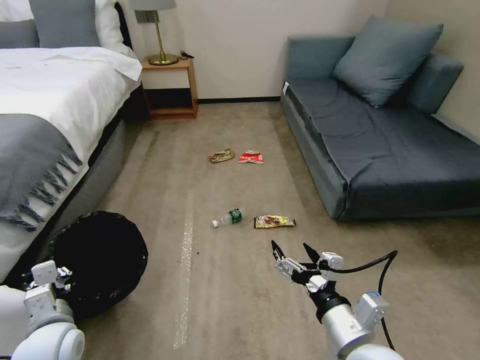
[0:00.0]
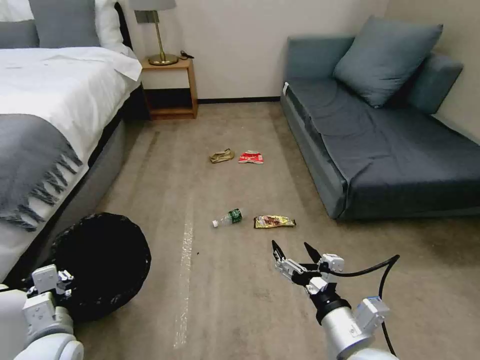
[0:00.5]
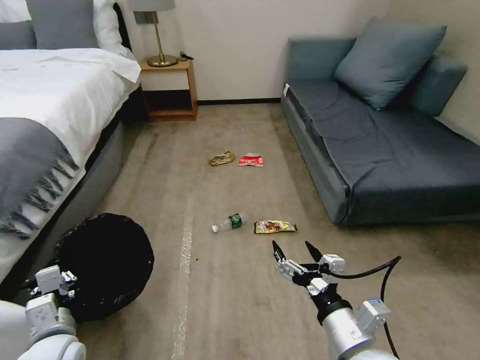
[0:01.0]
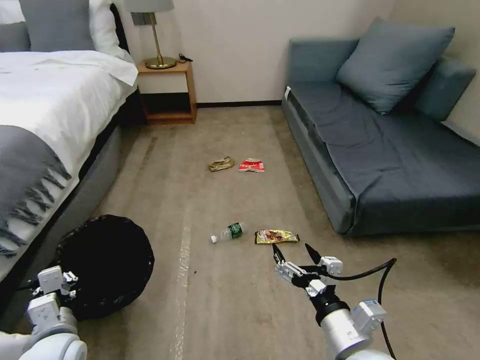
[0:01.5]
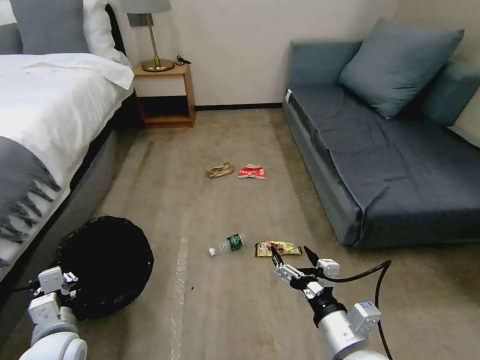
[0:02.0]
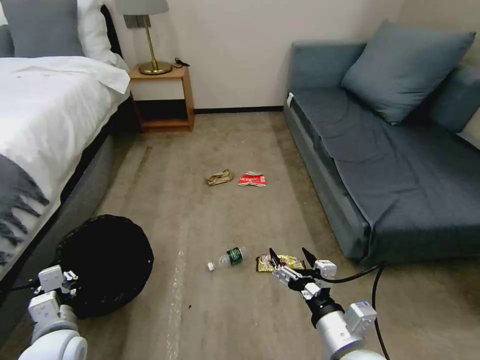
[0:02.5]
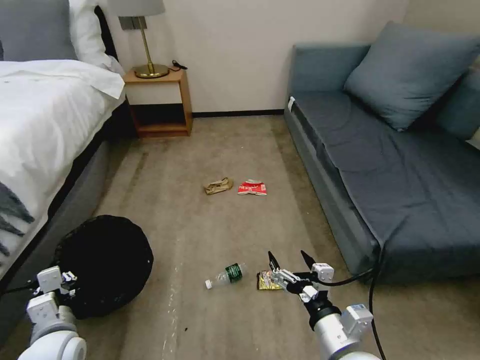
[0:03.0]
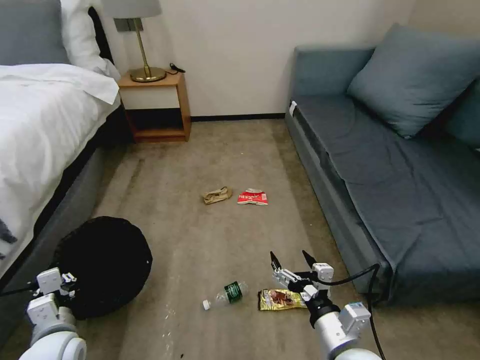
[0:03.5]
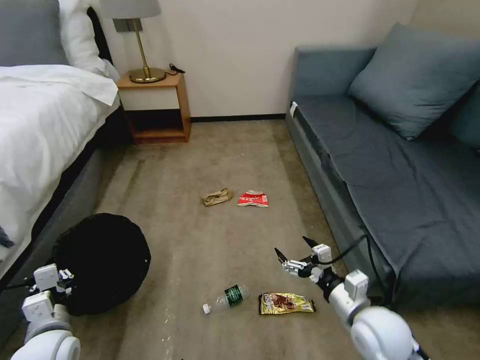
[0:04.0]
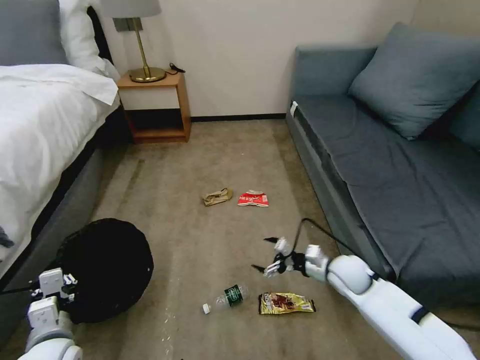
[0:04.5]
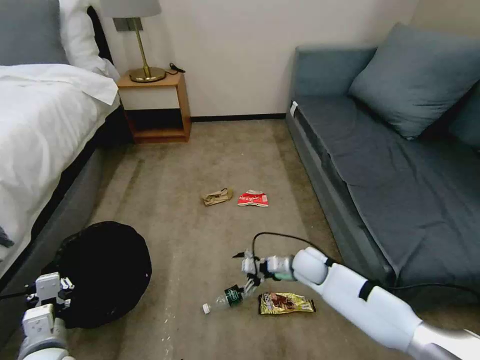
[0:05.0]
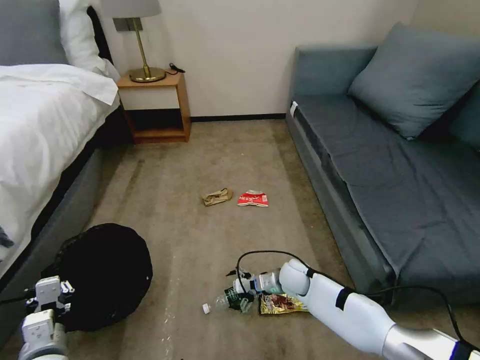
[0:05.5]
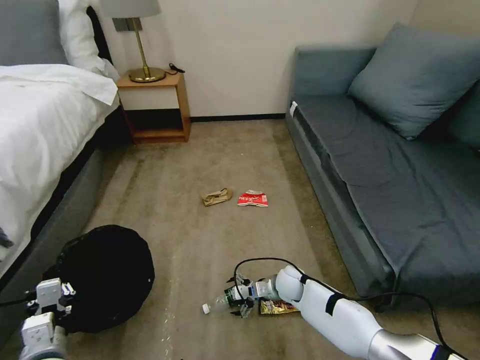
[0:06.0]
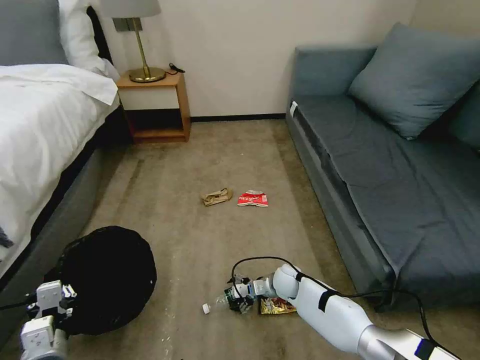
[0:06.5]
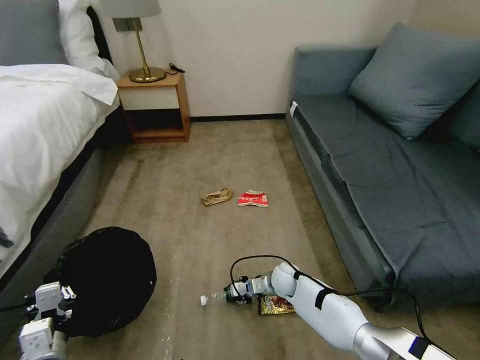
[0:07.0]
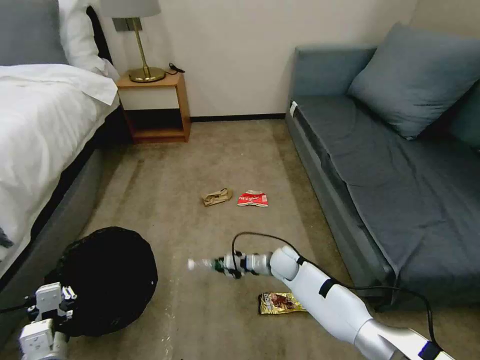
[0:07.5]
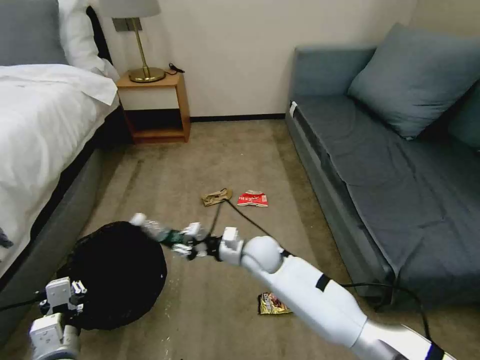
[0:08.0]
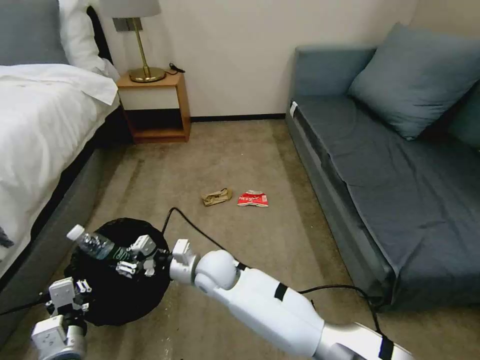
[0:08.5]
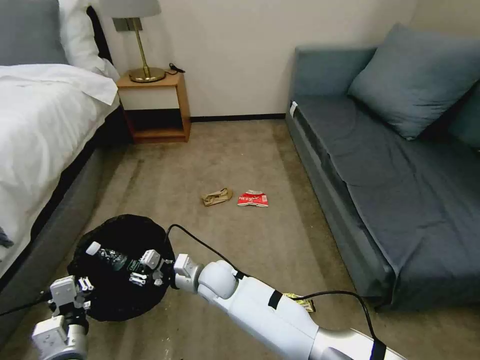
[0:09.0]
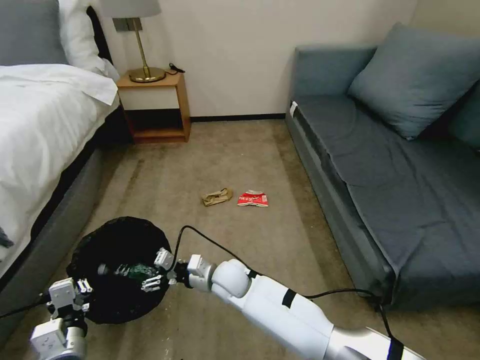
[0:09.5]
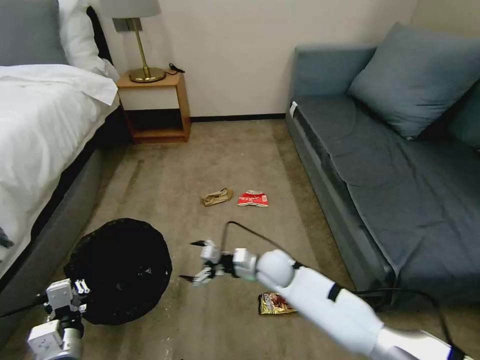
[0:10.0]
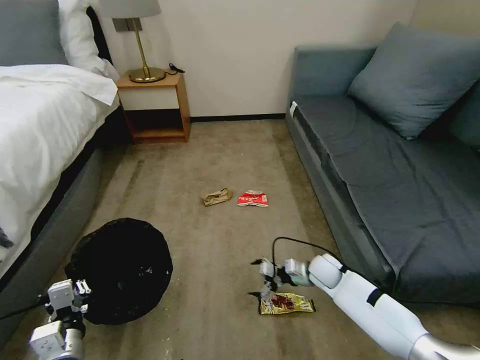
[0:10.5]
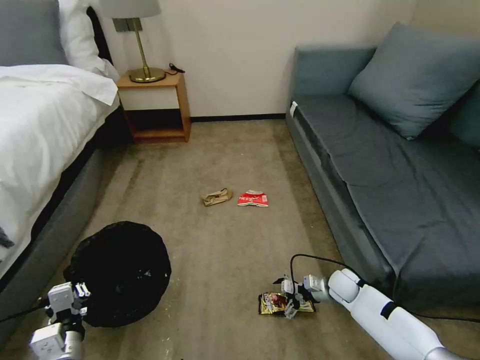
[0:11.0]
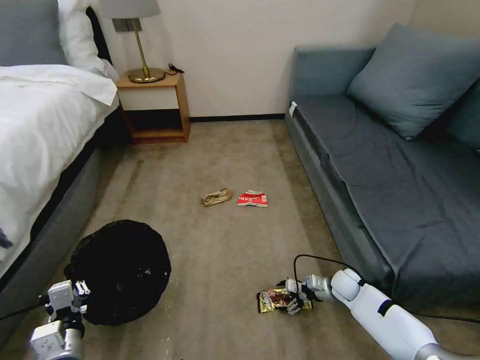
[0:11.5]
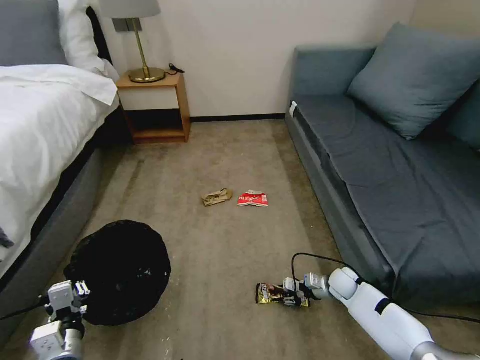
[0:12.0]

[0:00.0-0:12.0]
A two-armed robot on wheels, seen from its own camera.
Task of the whole recording: Pick up the trash bin, then pick up the garbage on the floor and place it into the trash bin.
0:02.0 to 0:04.0: The right gripper heads forward and to the right, covering roughly 10 cm.
0:04.0 to 0:06.0: The right gripper moves downward, forward and to the left, roughly 25 cm.
0:06.0 to 0:08.0: The right gripper is displaced upward and to the left by some 20 cm, and closes up.
0:08.0 to 0:10.0: The right gripper shifts approximately 5 cm downward, reaches roughly 10 cm to the left, then returns, and opens up.
0:10.0 to 0:12.0: The right gripper travels to the right and downward by some 25 cm, and closes its fingers.

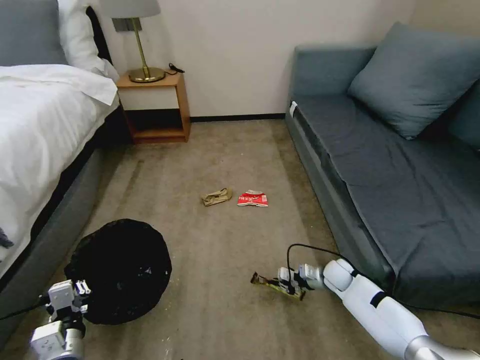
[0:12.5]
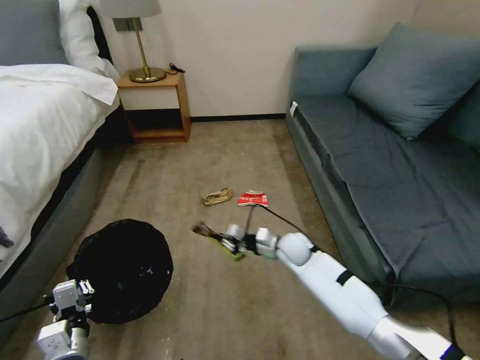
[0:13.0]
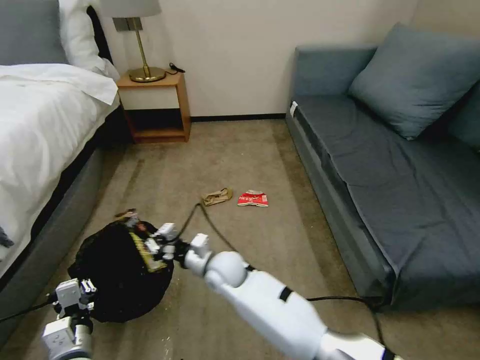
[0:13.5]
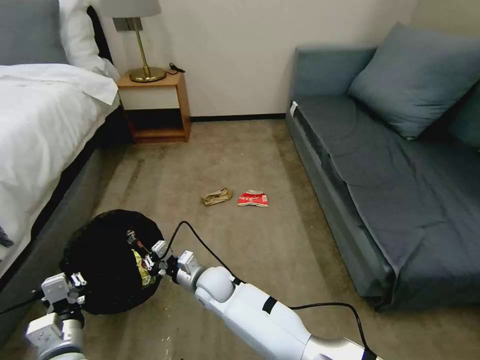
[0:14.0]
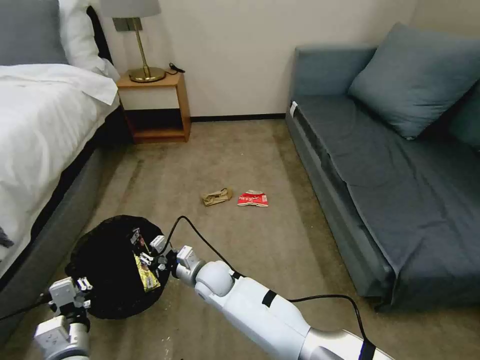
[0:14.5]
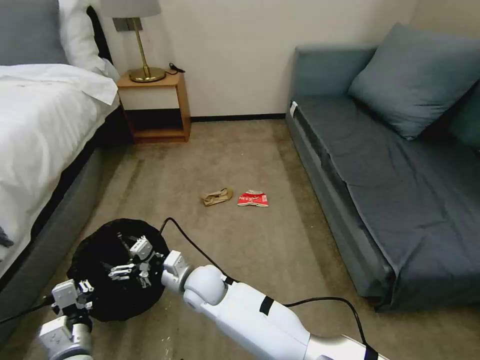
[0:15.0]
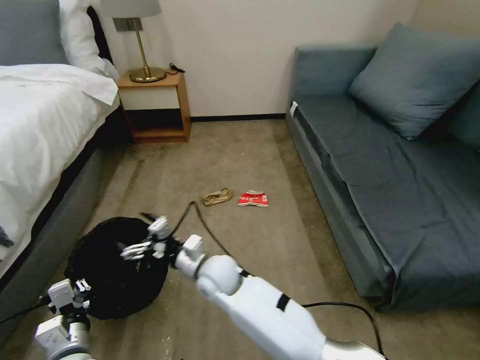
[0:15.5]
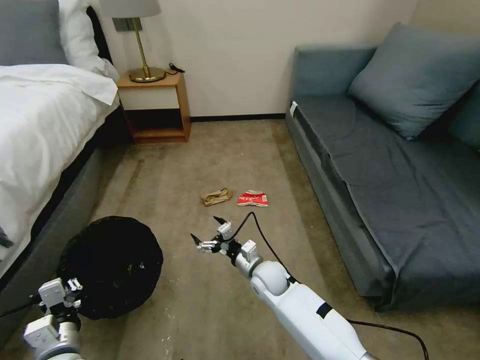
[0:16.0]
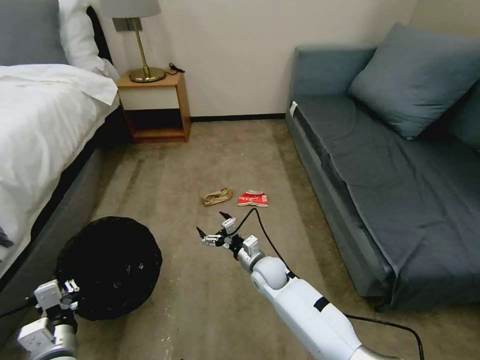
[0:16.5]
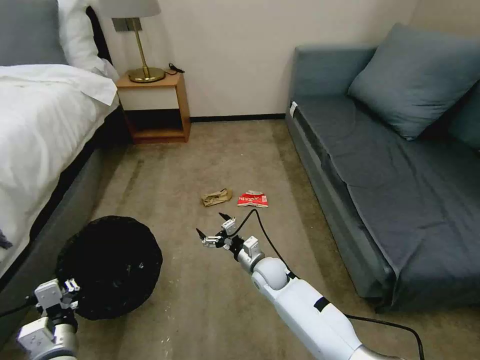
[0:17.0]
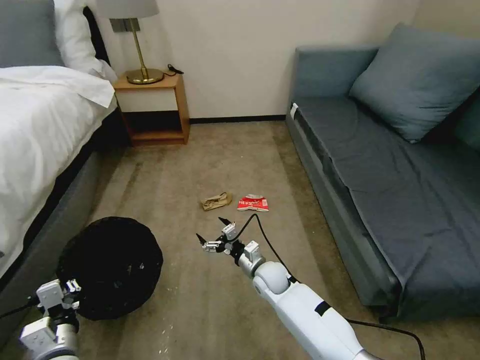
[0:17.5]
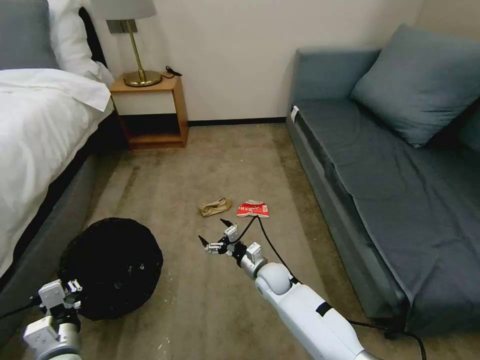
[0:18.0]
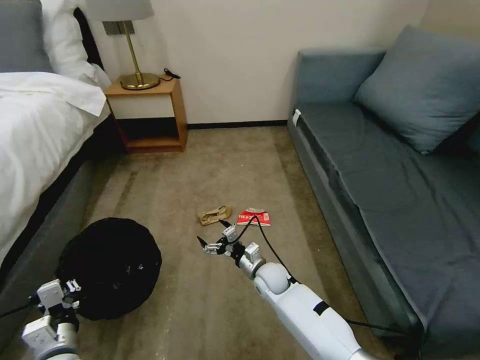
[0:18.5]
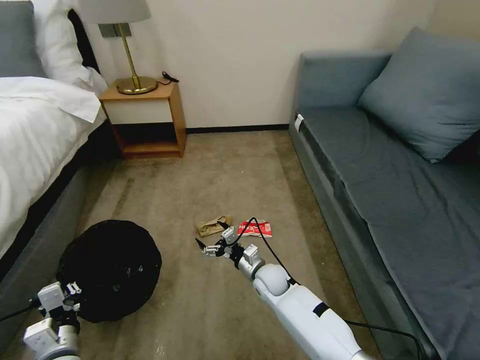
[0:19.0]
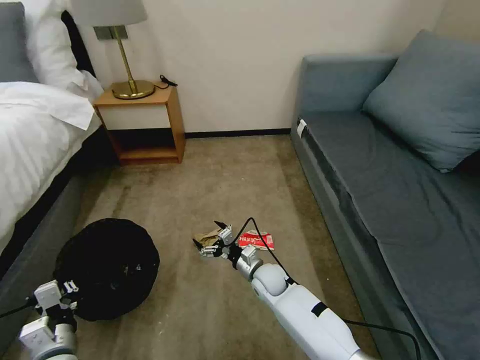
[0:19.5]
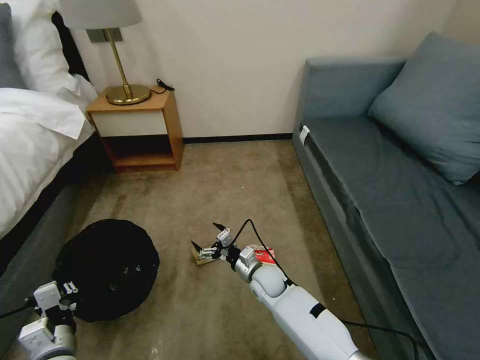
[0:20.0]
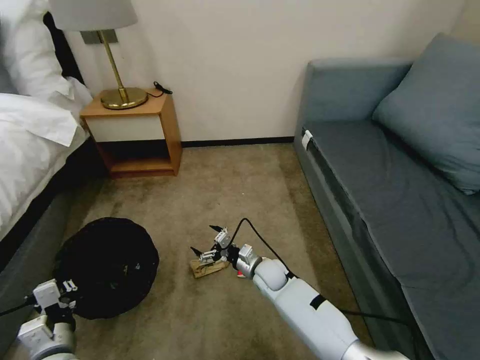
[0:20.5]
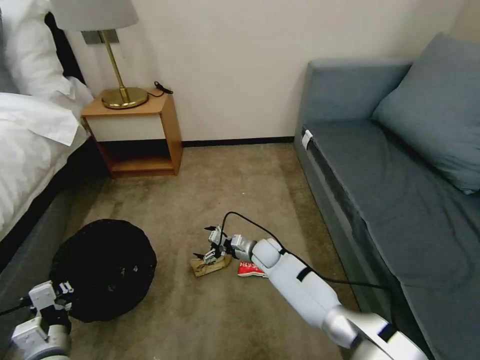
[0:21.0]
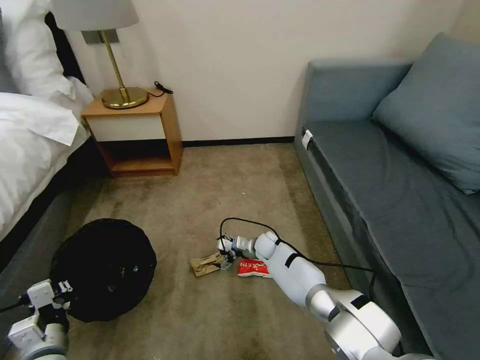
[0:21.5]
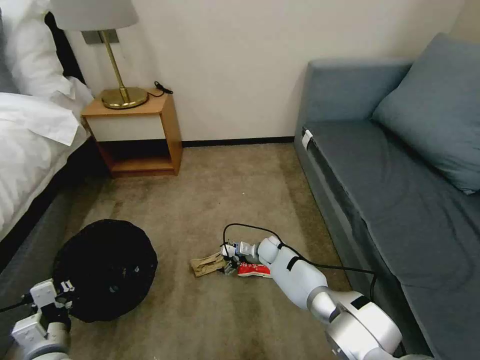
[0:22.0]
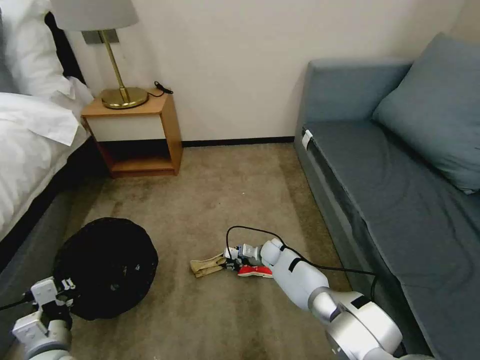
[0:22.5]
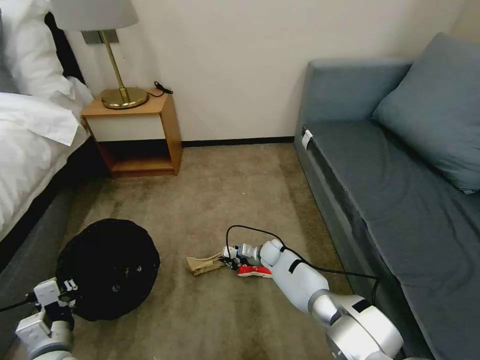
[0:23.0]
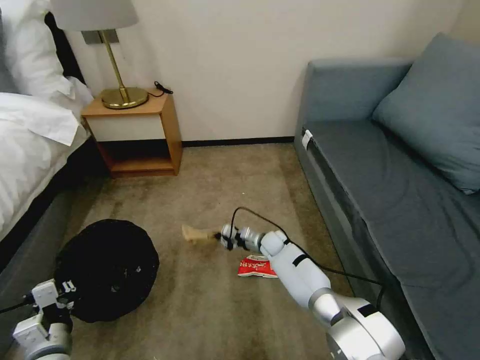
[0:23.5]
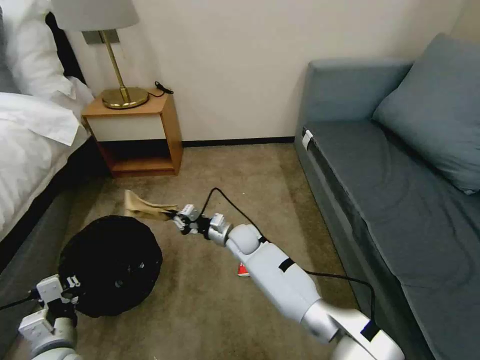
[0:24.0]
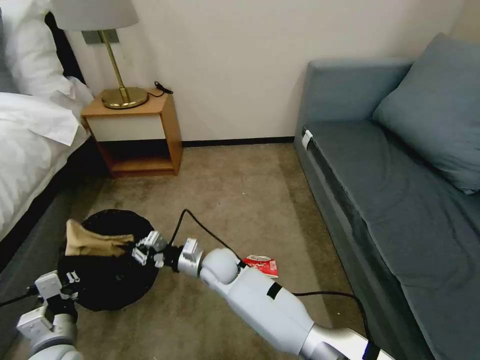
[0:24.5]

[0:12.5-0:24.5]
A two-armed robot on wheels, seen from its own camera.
Task of the whole recording: Pick up the trash bin, then pick up the garbage on the floor and place it into the trash bin.
0:12.5 to 0:14.5: The right gripper goes about 40 cm to the left.
0:14.5 to 0:16.5: The right gripper is displaced to the right by about 15 cm, and opens its fingers.
0:20.5 to 0:22.5: The right gripper moves forward and downward, some 10 cm, and closes up.
0:22.5 to 0:24.5: The right gripper goes about 25 cm to the left, upward and backward, and closes up.

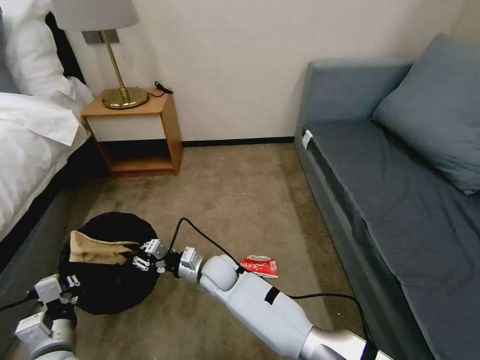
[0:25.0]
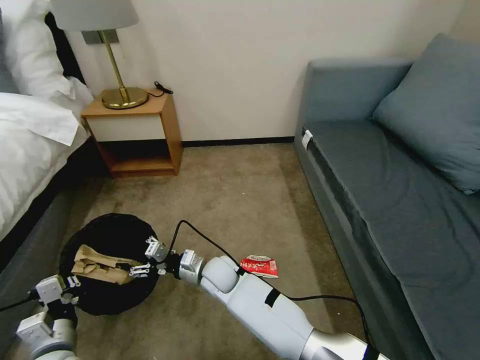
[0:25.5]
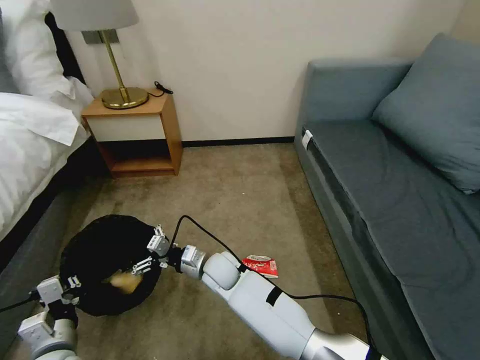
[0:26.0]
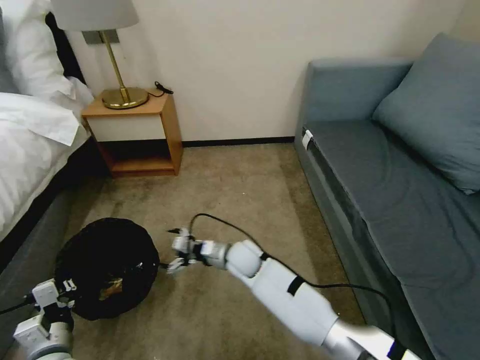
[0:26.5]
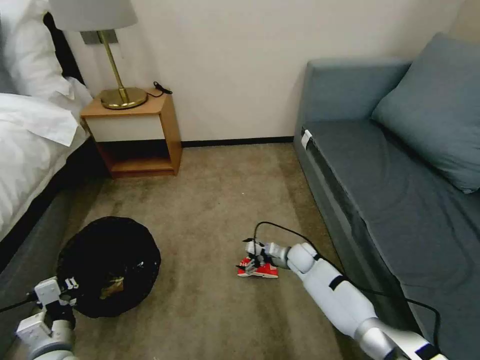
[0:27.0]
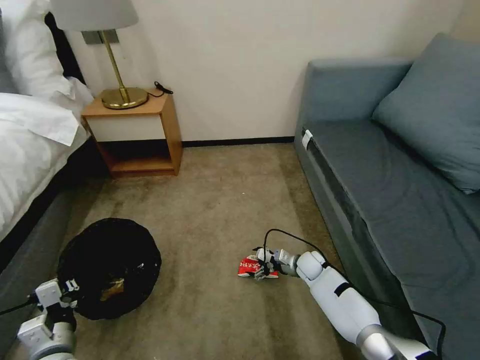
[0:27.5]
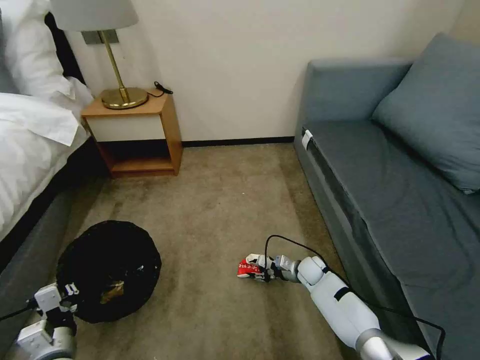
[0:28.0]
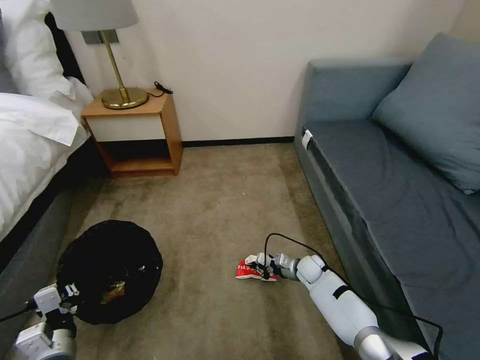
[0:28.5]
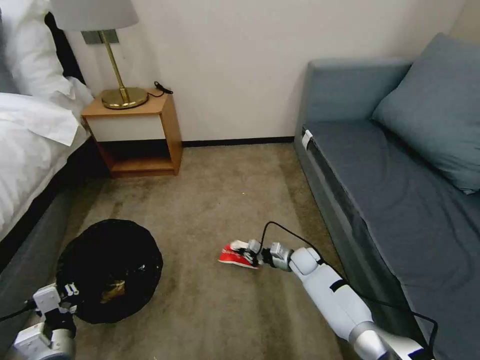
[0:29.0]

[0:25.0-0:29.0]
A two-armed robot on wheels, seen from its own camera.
Task of the whole recording: Pick up the trash bin, then pick up the garbage on the floor and place it into the trash bin.
0:25.0 to 0:27.0: The right gripper travels to the right by about 25 cm, and opens its fingers.
0:27.0 to 0:29.0: The right gripper closes.
